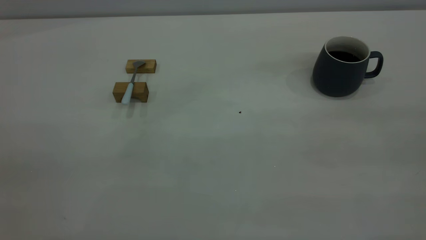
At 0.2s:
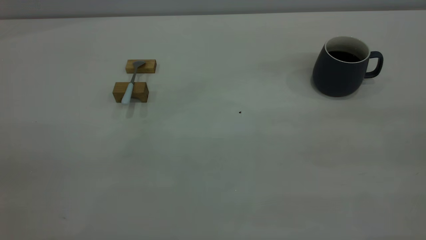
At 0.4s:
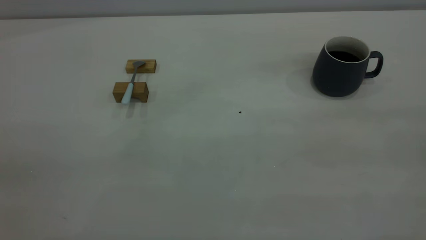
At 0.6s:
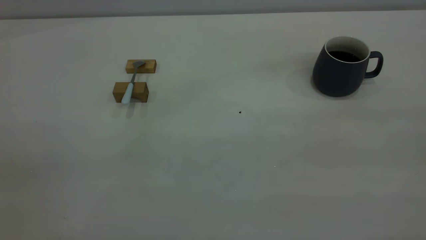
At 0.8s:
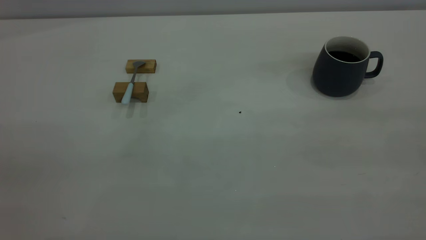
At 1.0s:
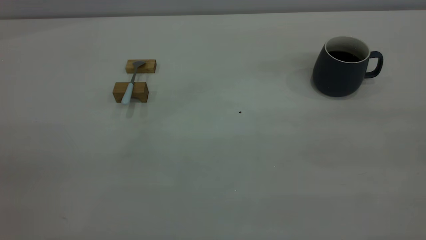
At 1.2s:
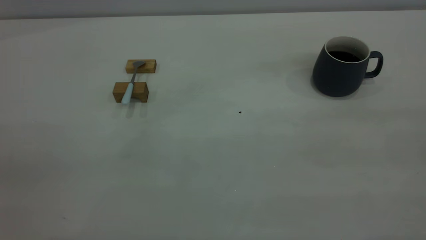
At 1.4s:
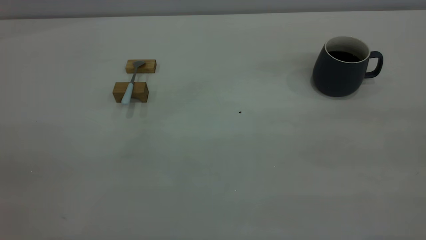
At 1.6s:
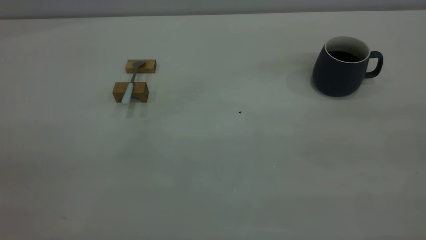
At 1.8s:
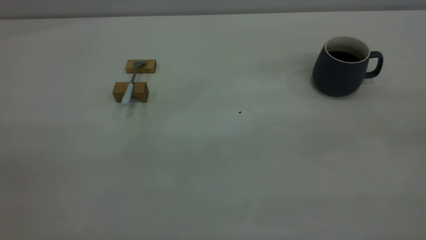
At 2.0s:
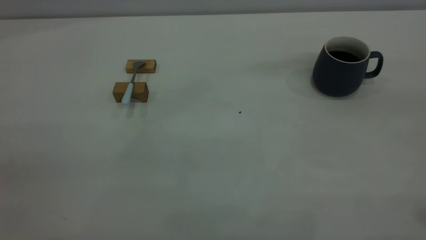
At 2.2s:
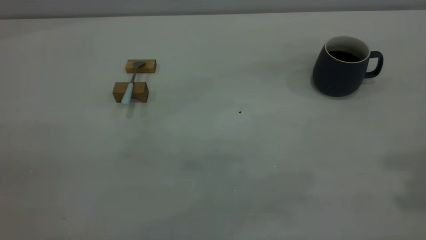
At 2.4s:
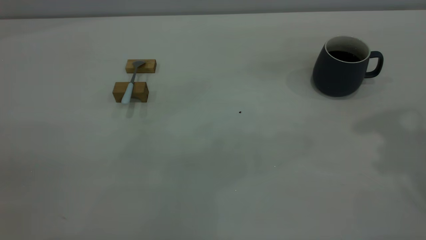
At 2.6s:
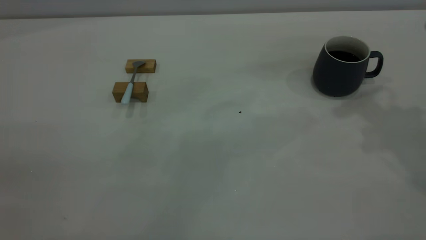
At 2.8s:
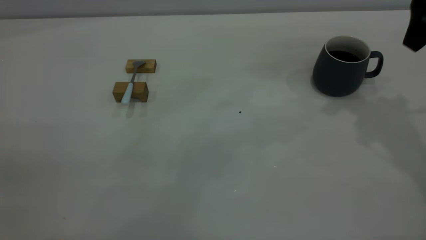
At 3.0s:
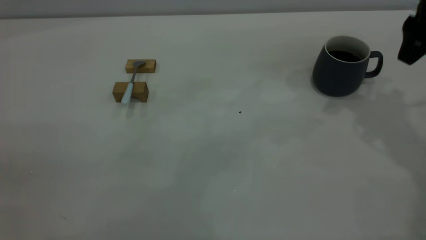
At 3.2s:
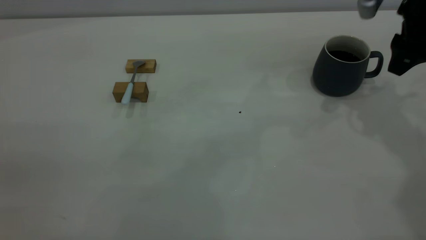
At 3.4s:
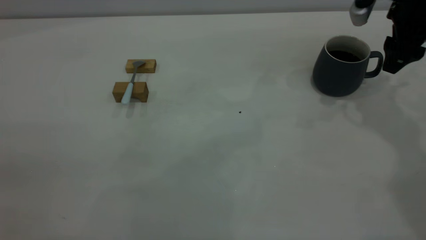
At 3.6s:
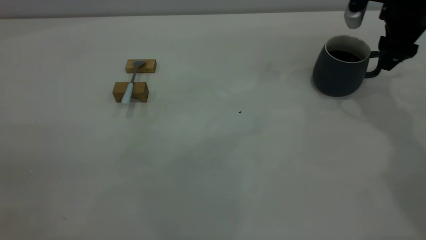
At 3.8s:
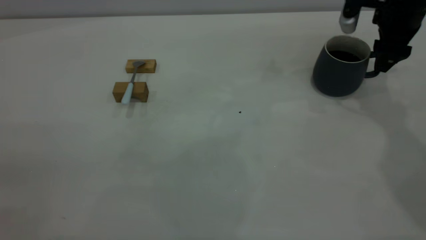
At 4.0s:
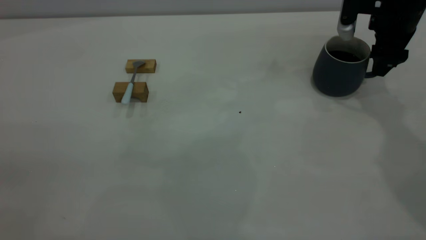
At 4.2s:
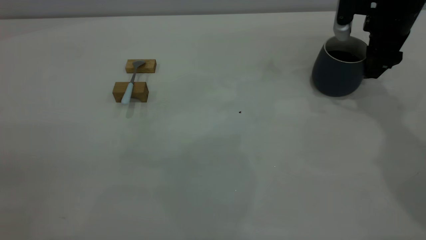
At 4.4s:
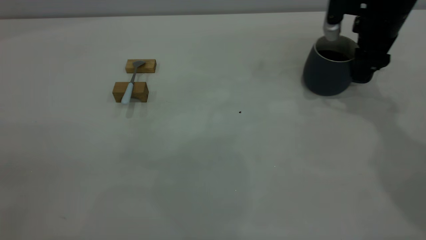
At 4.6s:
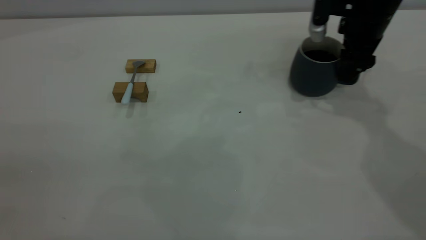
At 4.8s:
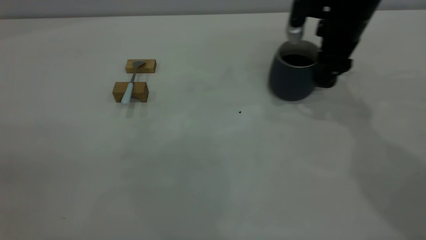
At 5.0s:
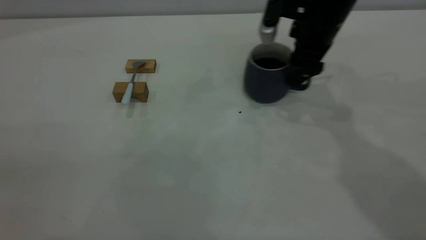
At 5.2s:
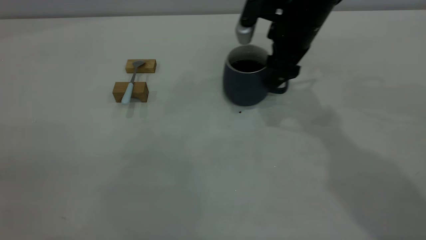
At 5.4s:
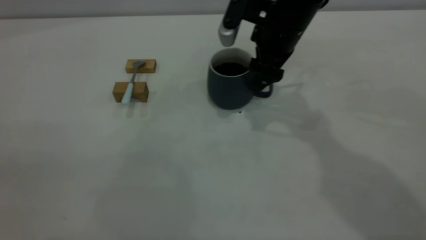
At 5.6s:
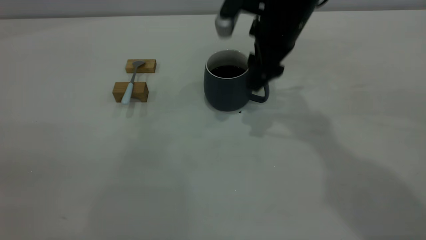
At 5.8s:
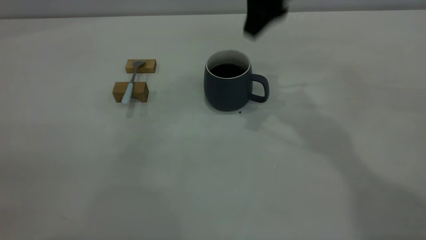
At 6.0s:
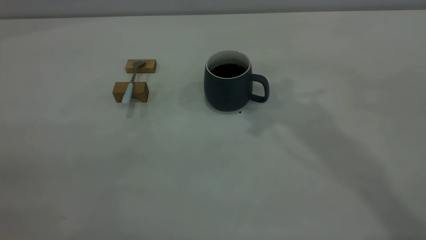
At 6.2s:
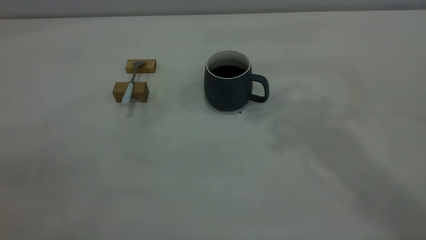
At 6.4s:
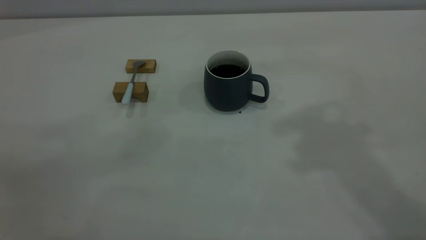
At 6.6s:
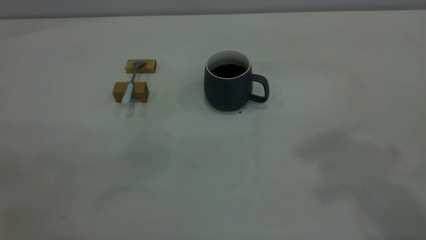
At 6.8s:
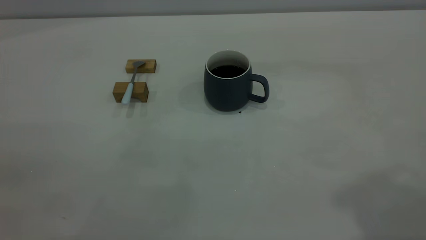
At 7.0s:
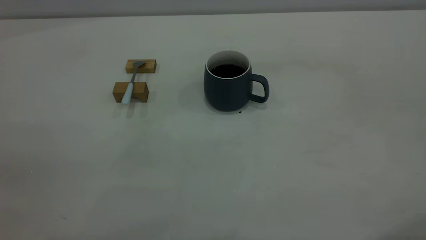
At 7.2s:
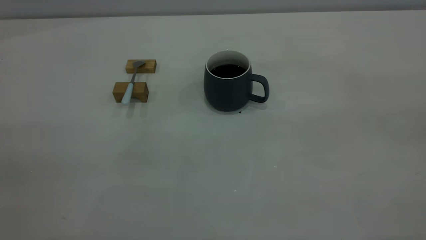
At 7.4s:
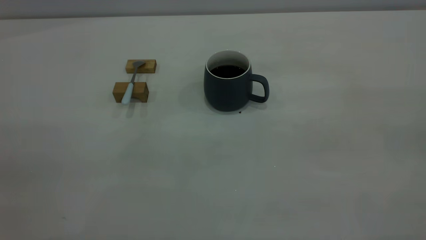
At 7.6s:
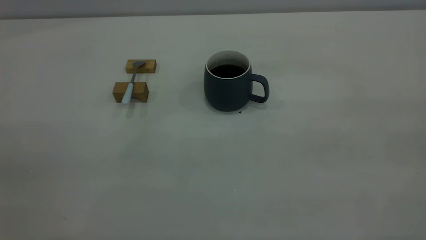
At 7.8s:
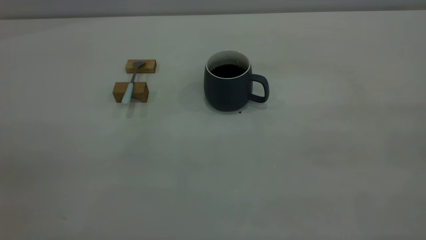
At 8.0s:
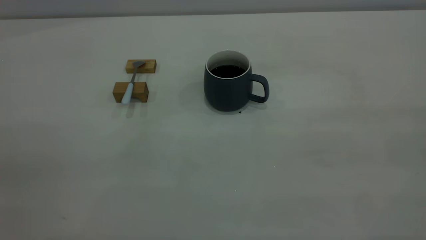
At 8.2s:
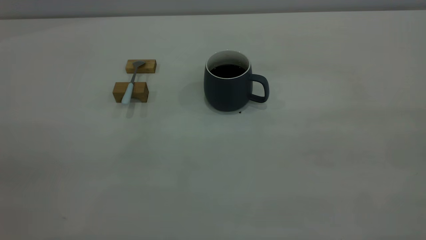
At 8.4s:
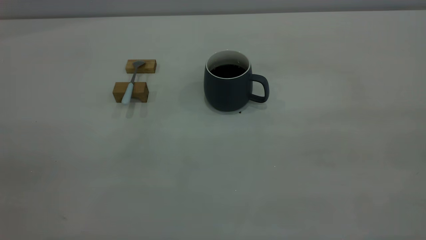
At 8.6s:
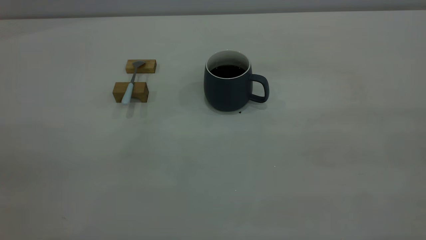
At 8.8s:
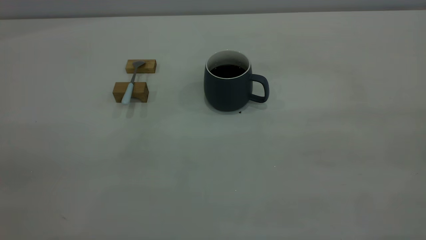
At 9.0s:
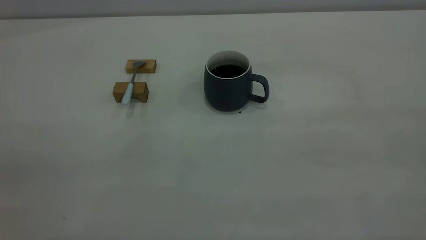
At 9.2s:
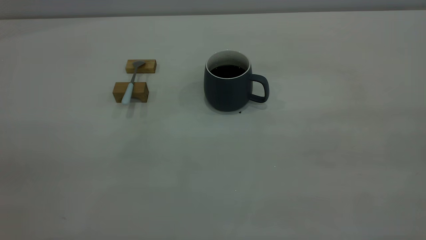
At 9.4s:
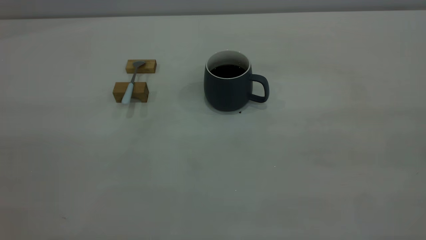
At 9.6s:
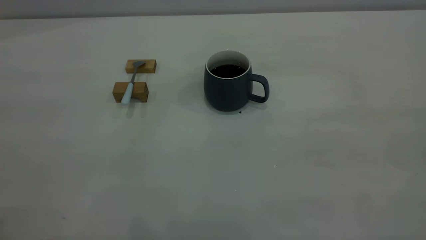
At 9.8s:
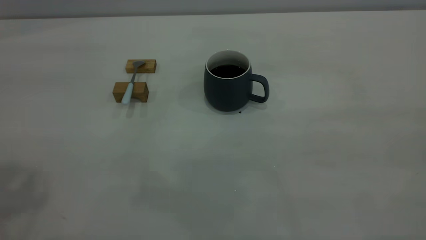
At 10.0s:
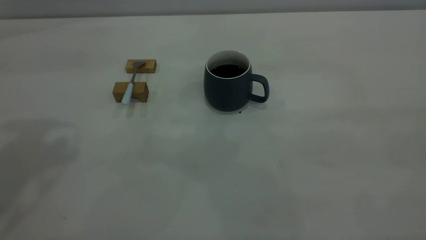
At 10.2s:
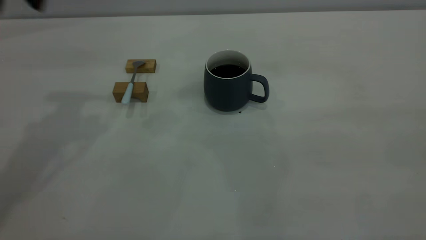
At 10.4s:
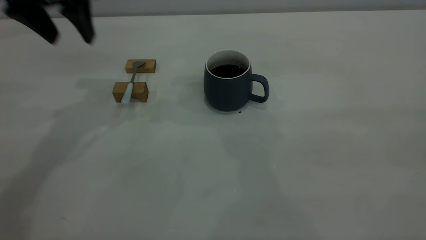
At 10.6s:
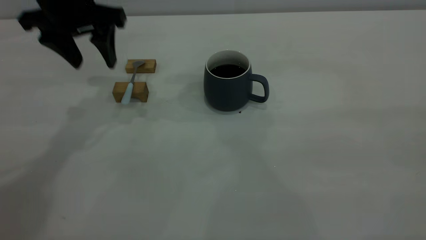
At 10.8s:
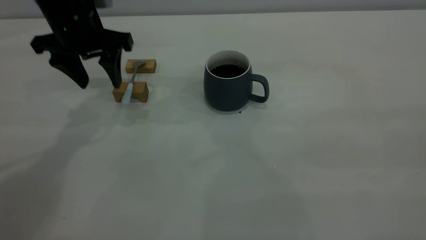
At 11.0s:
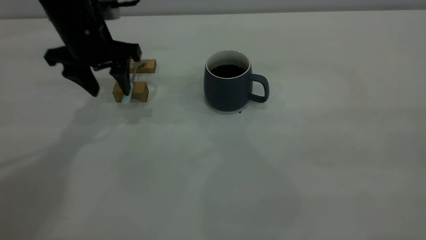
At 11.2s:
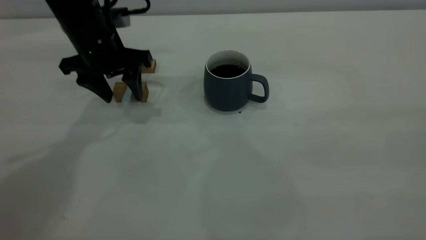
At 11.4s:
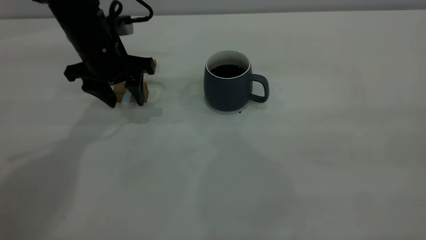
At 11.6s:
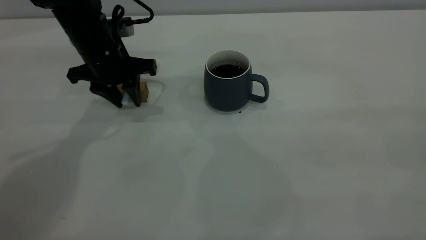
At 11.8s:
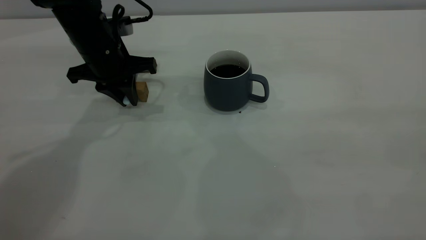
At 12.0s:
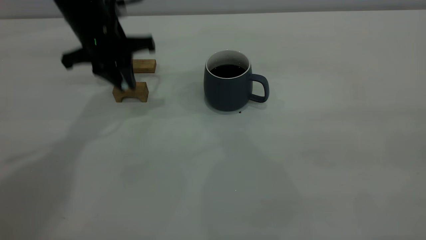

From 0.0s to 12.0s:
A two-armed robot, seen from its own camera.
Step, from 0.0s to 5.6s: Move the cup with coffee to the center of view.
Step, from 6.0s to 11.8s: Pick up the spoon.
From 0.0s to 1.6s: Neither gripper changes place.
From 1.6s to 3.0s: The right gripper is displaced forward and downward by some 40 cm.
From 3.0s to 4.4s: The right gripper travels forward and downward by about 10 cm.
From 4.4s to 6.0s: The right gripper travels upward and to the left by some 30 cm.
From 9.0s to 10.4s: The left gripper shifts some 40 cm forward, and opens its fingers.
From 10.4s to 12.0s: The left gripper heads downward, covering some 10 cm, and closes up.

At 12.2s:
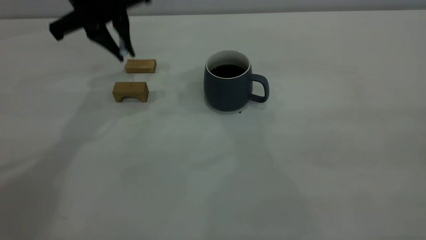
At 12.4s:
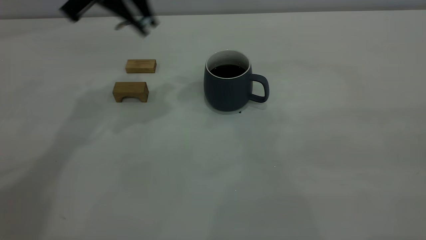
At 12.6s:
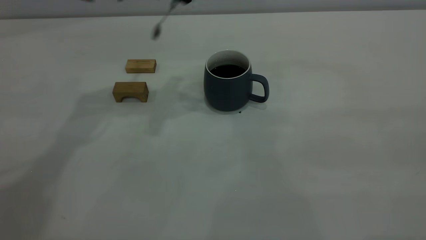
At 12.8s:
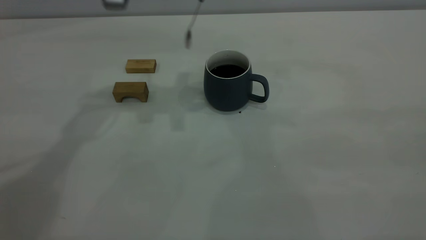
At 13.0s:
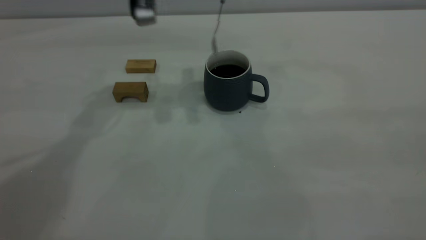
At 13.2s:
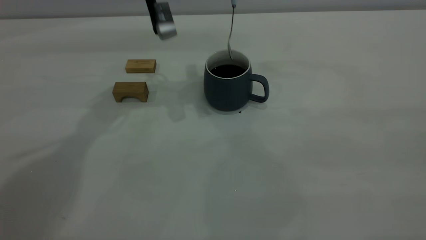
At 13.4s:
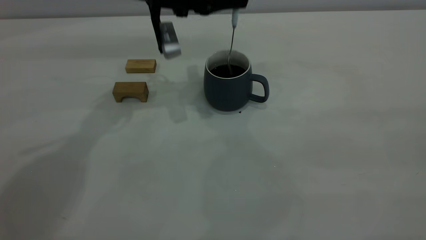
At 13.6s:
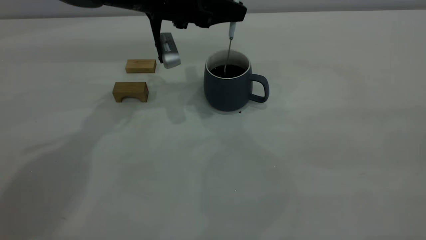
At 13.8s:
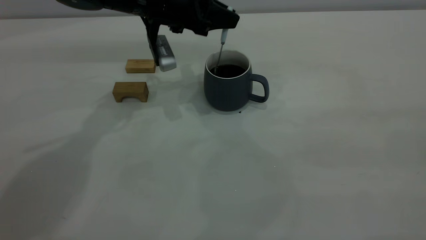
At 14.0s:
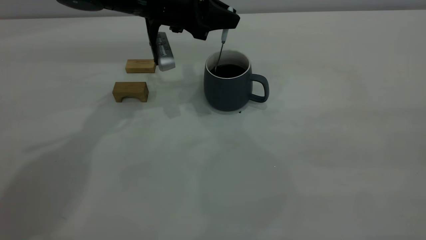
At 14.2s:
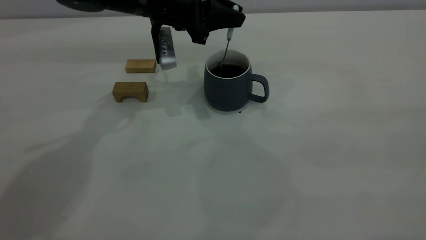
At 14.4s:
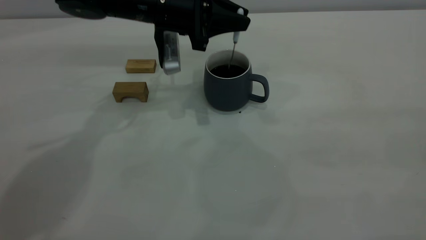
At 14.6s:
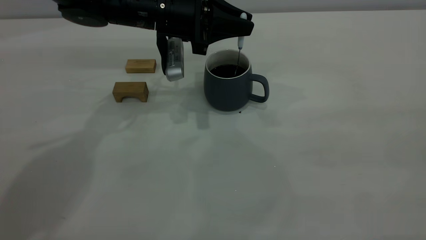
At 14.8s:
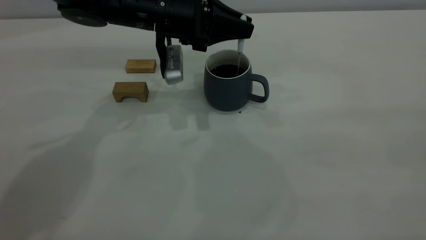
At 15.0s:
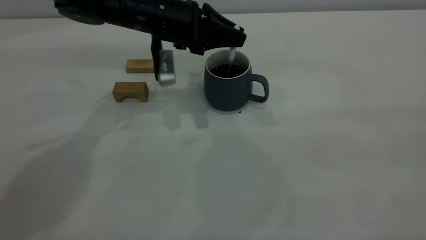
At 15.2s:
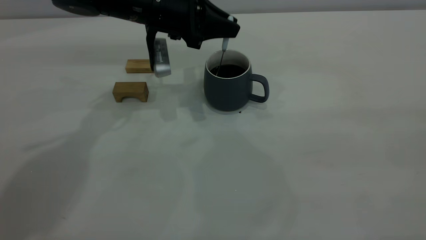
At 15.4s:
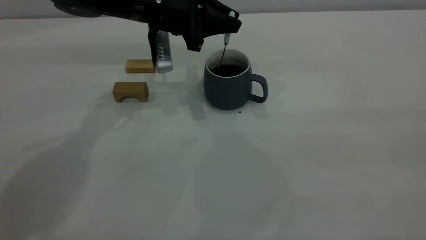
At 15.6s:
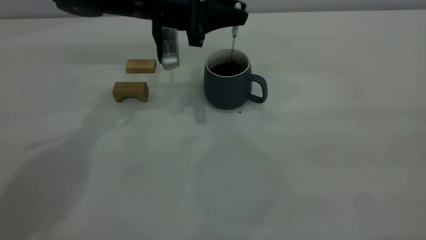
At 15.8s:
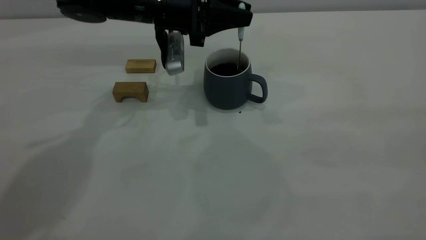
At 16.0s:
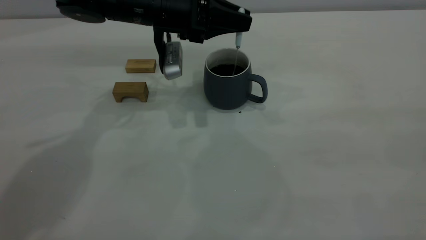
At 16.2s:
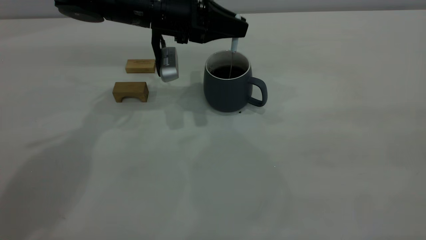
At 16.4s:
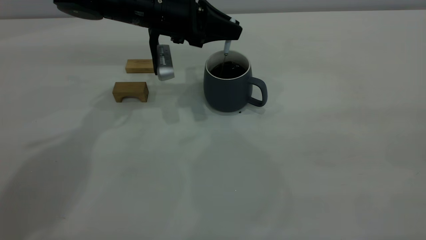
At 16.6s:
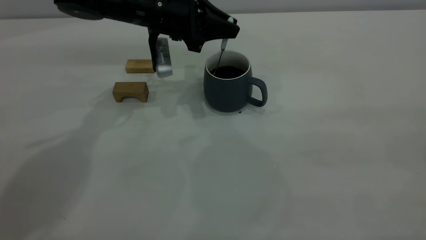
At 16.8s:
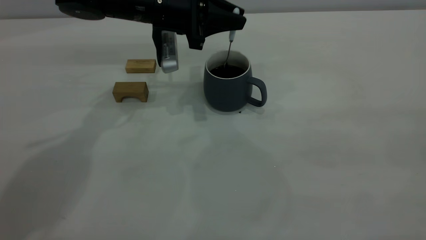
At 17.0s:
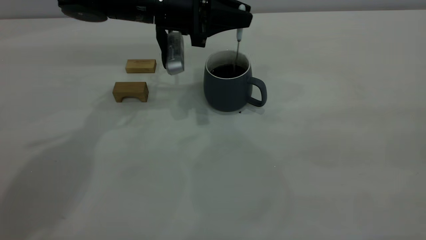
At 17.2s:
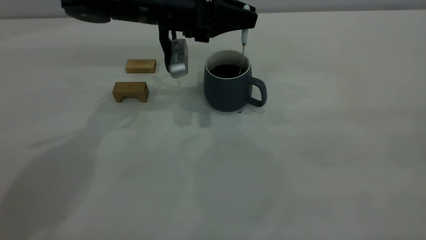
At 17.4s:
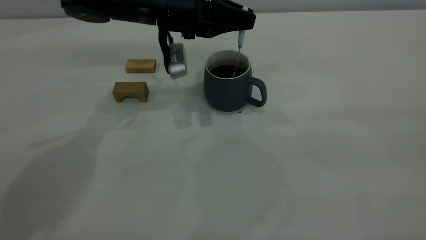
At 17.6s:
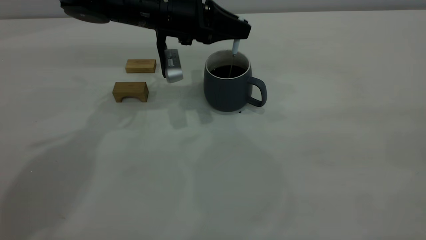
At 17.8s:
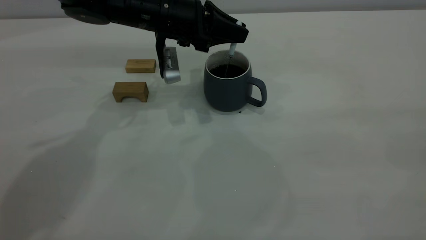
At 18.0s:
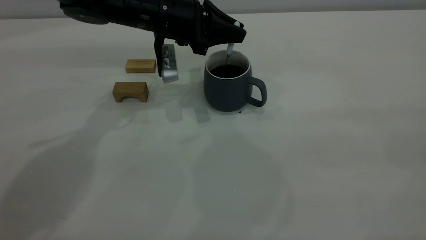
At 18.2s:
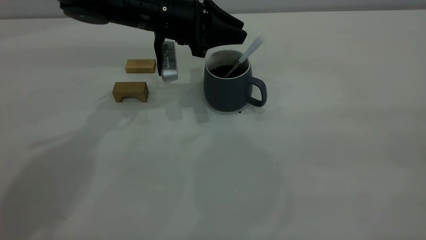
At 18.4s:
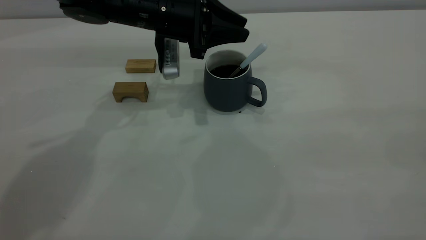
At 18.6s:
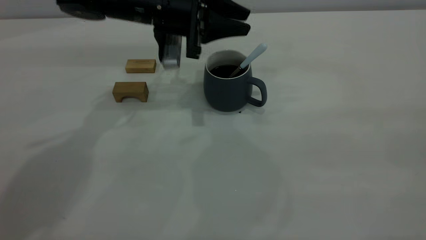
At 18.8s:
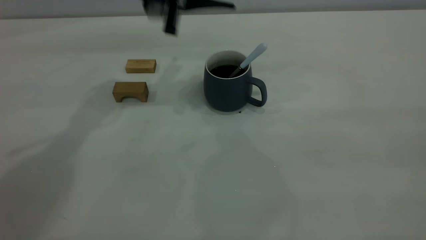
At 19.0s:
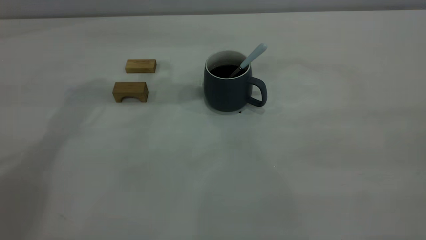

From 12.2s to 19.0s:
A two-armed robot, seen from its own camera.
Step, from 12.2s to 18.6s: Stir the coffee in the cup.
From 12.2s to 13.6s: The left gripper moves downward and to the right, about 10 cm.
From 13.6s to 15.0s: There are only small adjustments of the grippers.
From 15.0s to 17.6s: The grippers stay close to where they were, moving slightly.
From 17.6s to 19.0s: The left gripper travels upward by roughly 15 cm.
